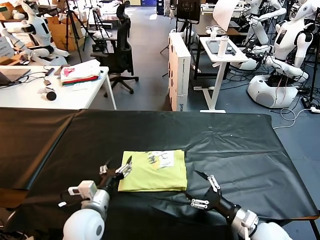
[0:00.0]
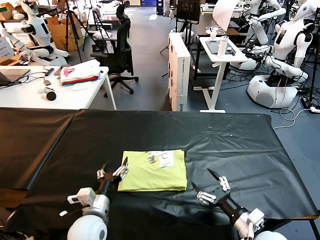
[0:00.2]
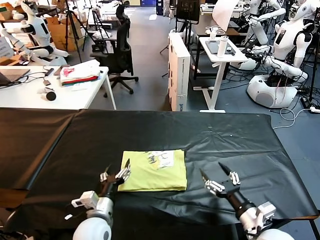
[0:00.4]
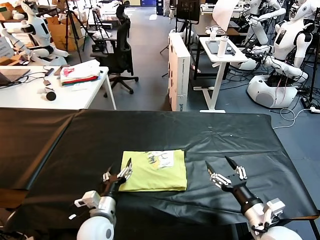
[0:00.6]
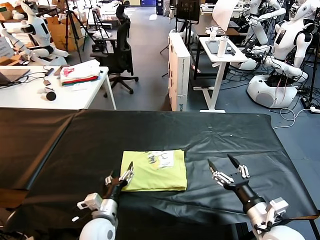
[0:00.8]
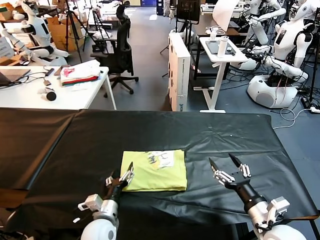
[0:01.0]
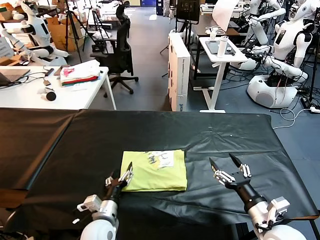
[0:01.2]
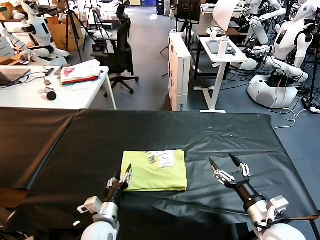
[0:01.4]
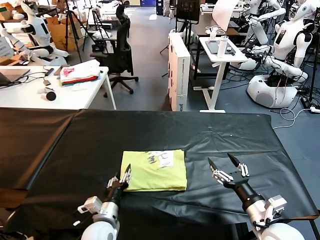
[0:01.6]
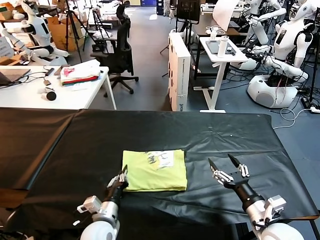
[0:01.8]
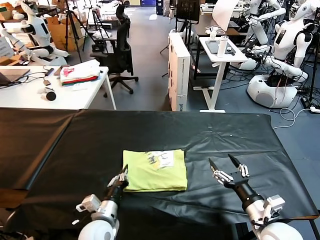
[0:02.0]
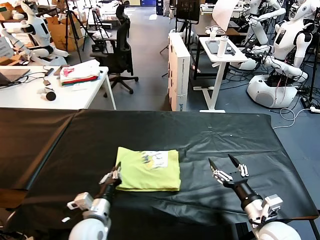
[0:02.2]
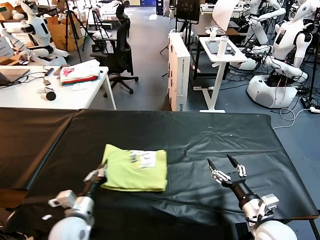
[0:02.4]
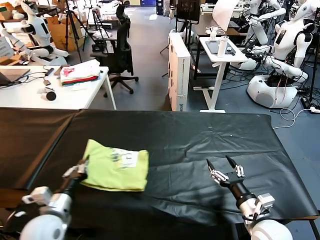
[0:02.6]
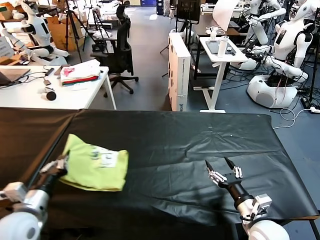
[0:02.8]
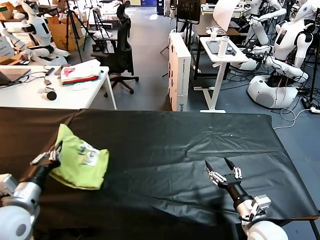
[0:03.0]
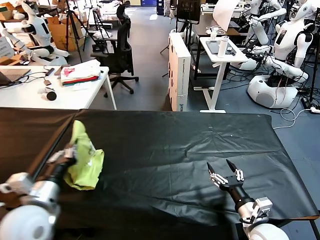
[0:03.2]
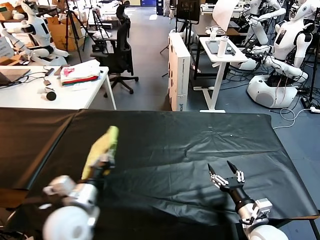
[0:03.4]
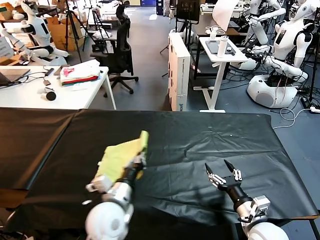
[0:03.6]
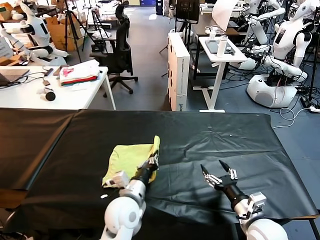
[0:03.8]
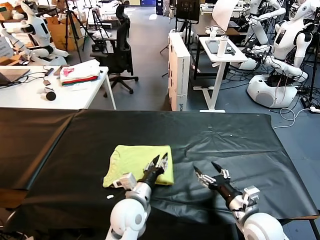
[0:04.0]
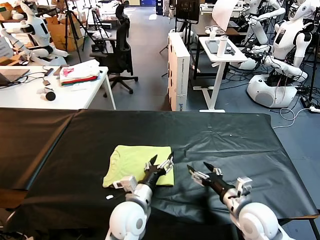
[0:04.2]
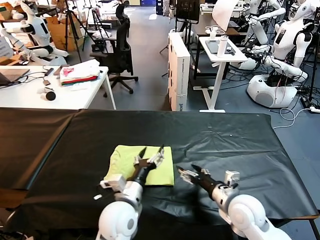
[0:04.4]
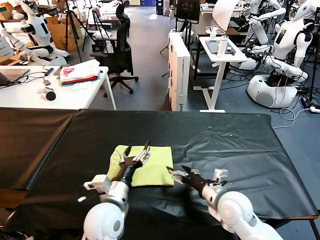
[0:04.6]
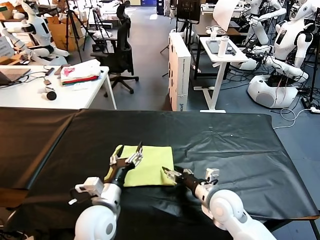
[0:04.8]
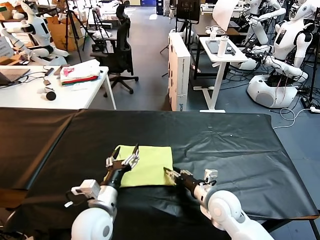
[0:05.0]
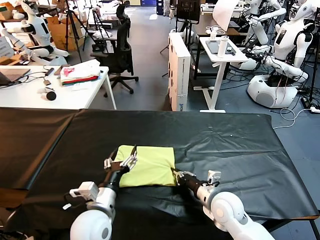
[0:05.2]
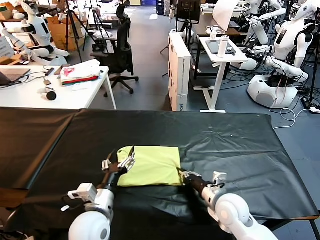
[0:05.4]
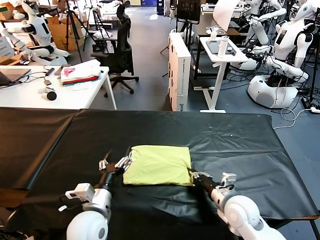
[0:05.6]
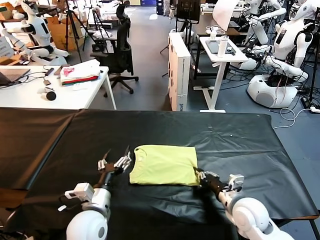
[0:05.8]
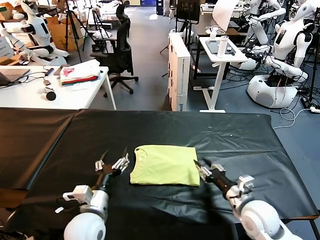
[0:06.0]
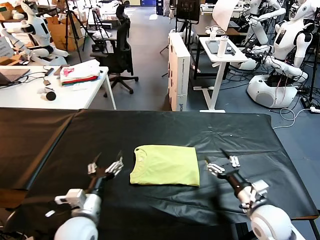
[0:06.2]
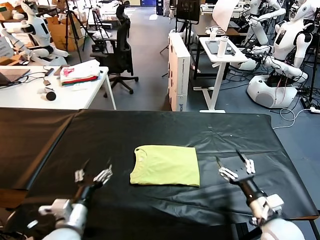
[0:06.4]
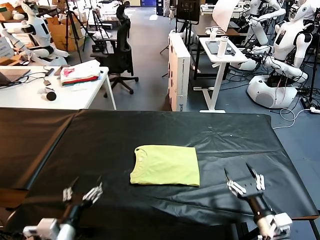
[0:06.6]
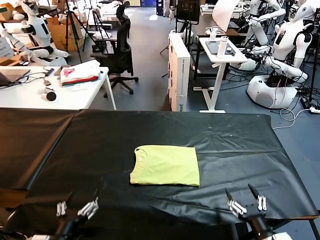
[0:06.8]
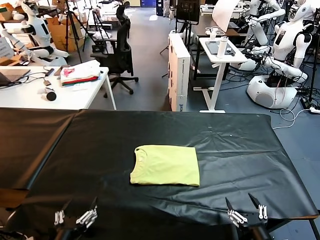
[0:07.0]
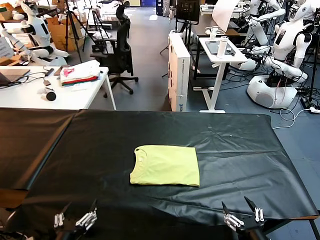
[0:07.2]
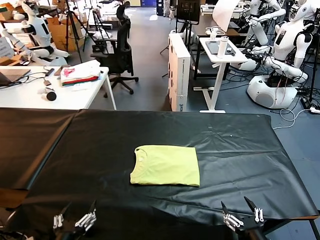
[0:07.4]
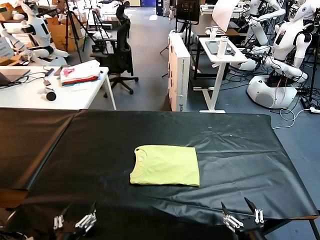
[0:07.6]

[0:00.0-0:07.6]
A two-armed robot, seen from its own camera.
Task of the whole recording: fold and organize the clothes.
Step, 0:00.0 to 0:04.0: Flip the folded clothes over with left gripper.
Step, 0:04.2 to 0:06.0: Drag the clothes to the center of the table.
0:00.0 to 0:01.6: The right gripper moves upward, roughly 5 cm. The left gripper shifts roughly 10 cm downward.
0:01.6 to 0:03.0: The left gripper shifts roughly 25 cm to the left and upward, and closes its fingers. The right gripper changes place by roughly 5 cm.
0:03.0 to 0:04.6: The left gripper goes some 25 cm to the right, and opens. Meanwhile the right gripper travels forward and to the left by roughly 10 cm.
0:04.6 to 0:06.0: The right gripper ends up roughly 5 cm from where it was, and closes. The left gripper goes about 5 cm to the left.
0:06.0 to 0:07.6: The grippers both shift backward by roughly 15 cm. The right gripper opens up.
